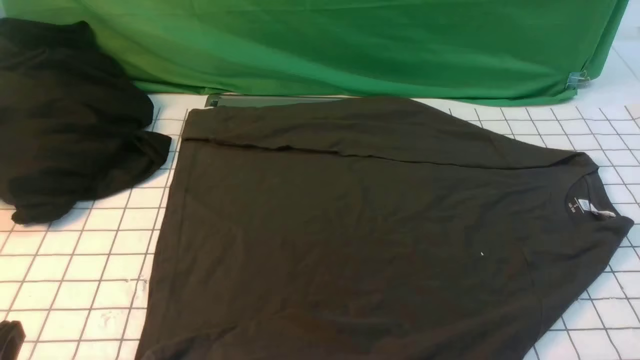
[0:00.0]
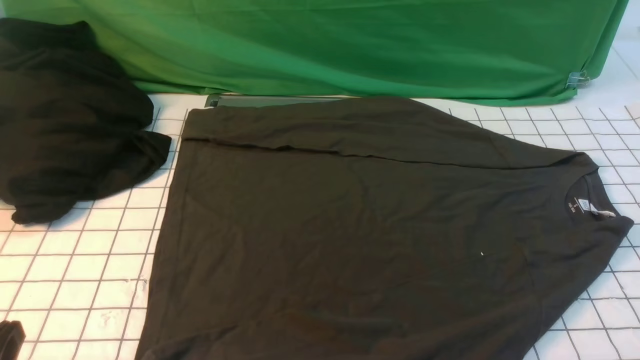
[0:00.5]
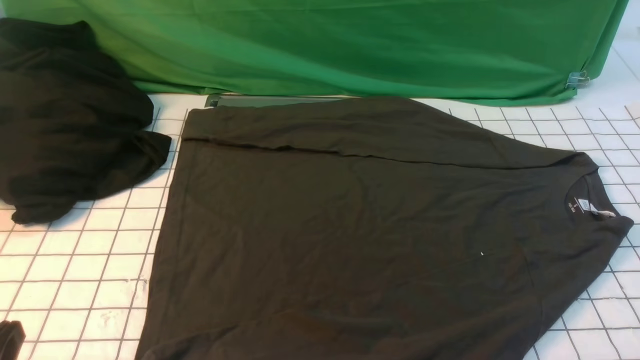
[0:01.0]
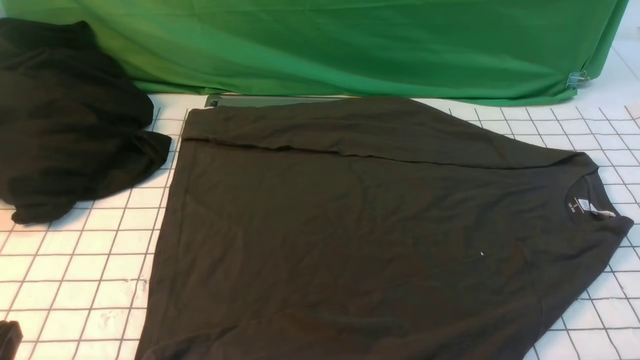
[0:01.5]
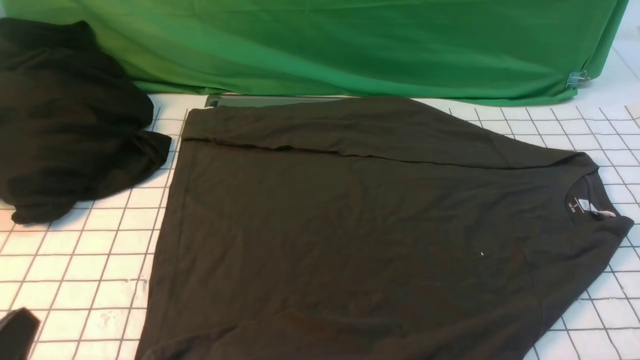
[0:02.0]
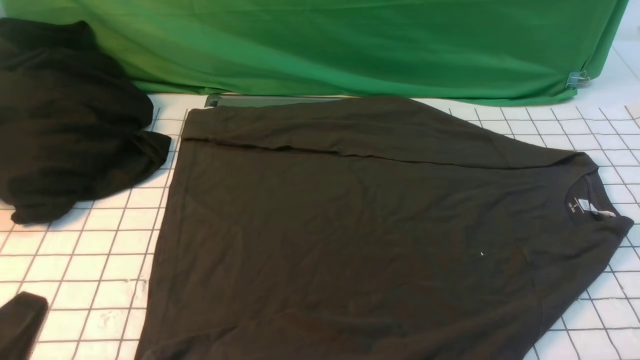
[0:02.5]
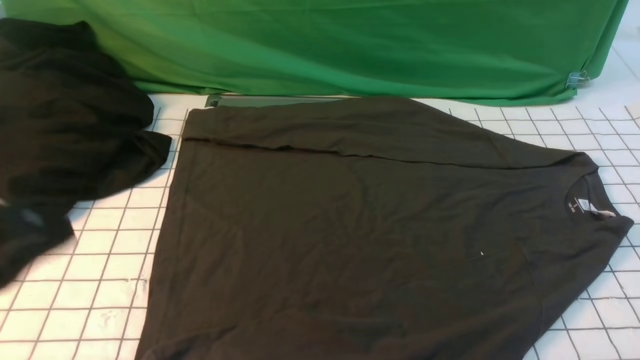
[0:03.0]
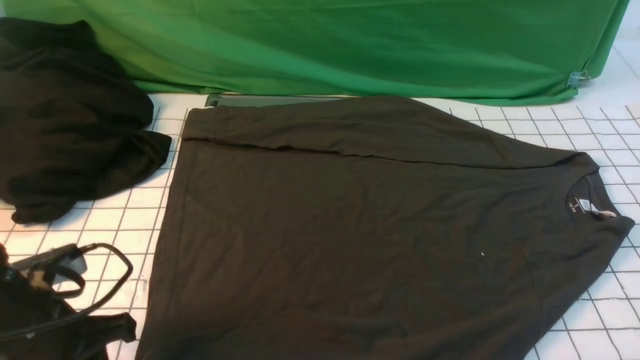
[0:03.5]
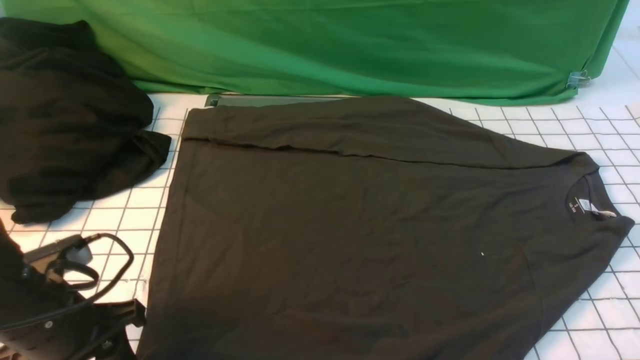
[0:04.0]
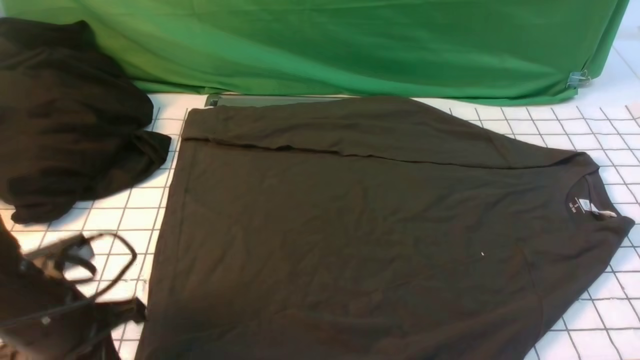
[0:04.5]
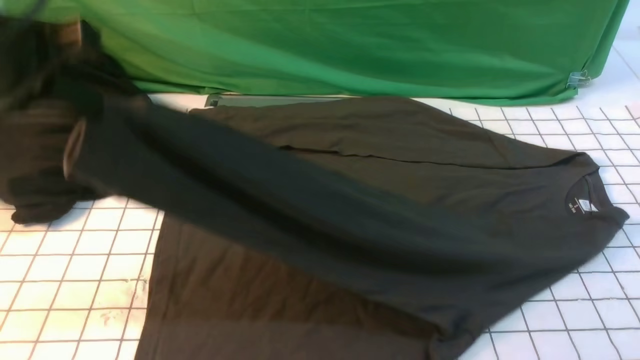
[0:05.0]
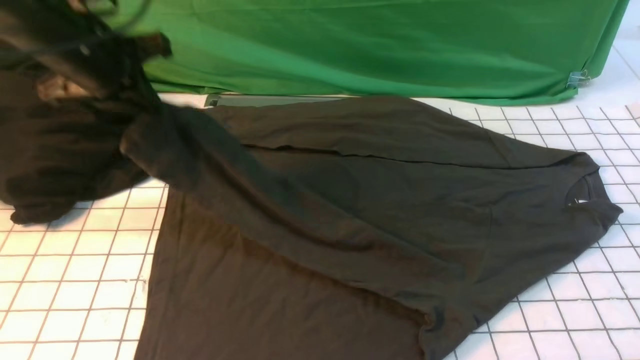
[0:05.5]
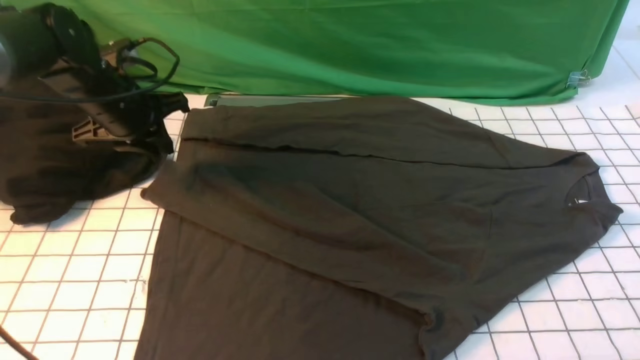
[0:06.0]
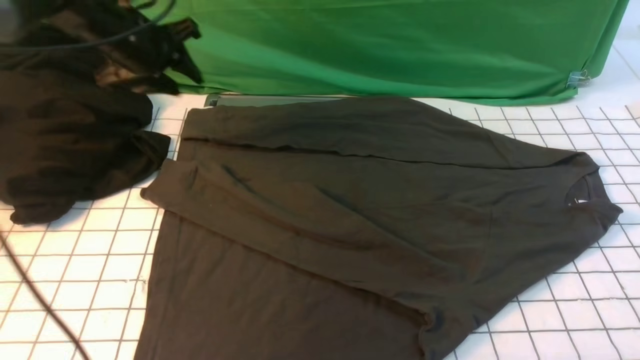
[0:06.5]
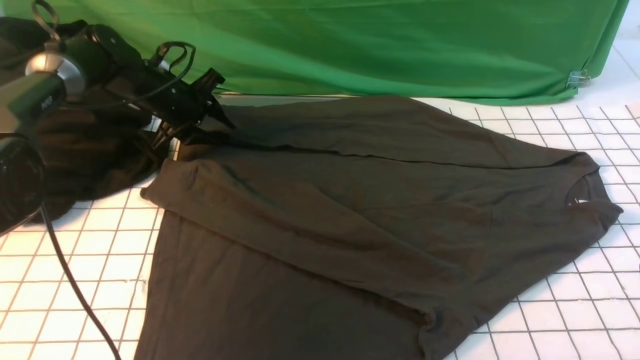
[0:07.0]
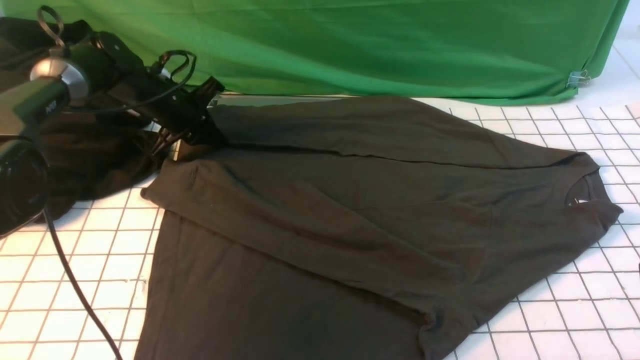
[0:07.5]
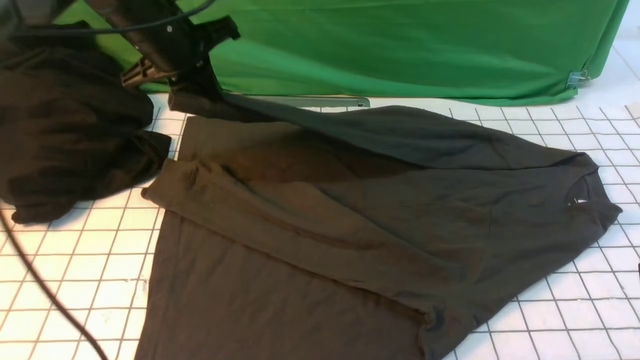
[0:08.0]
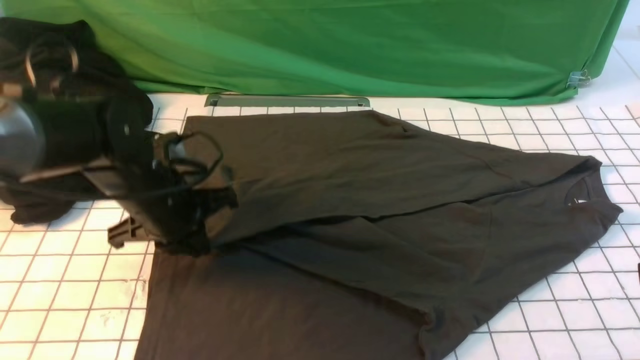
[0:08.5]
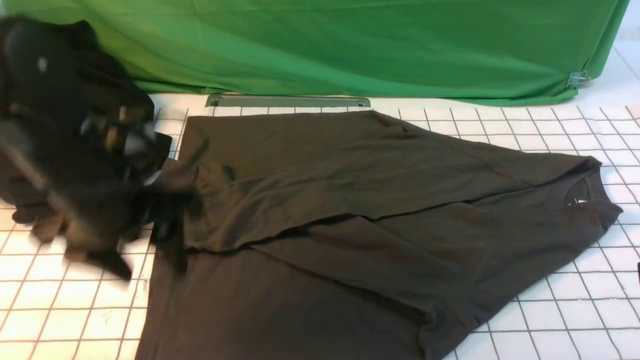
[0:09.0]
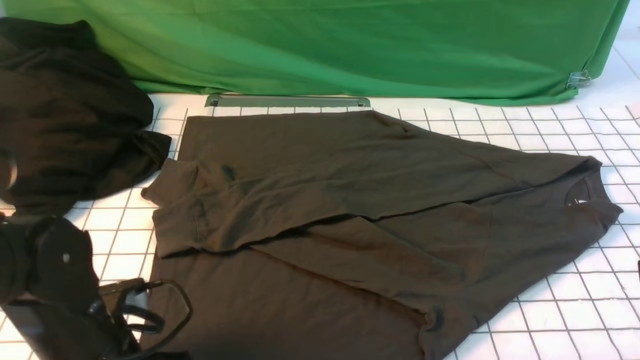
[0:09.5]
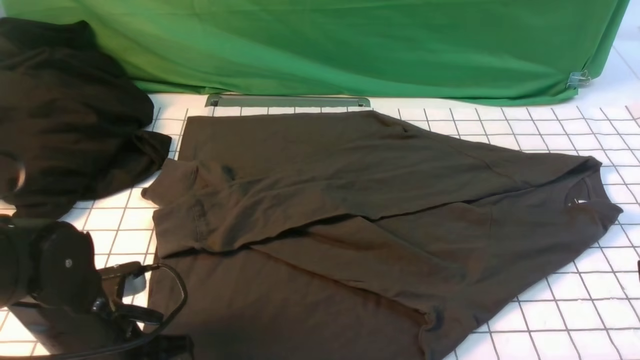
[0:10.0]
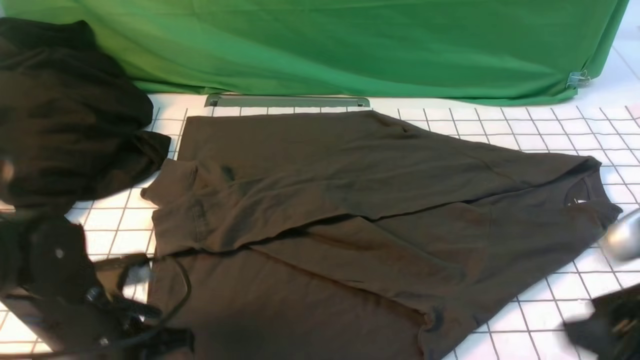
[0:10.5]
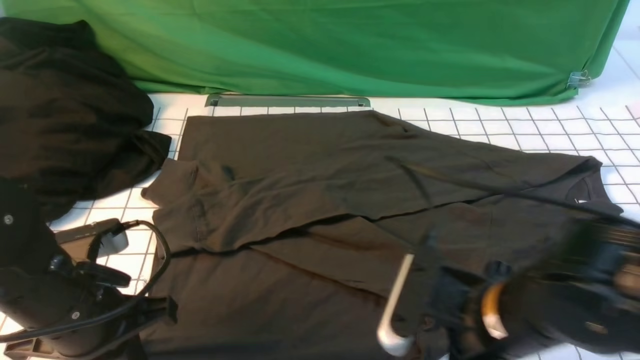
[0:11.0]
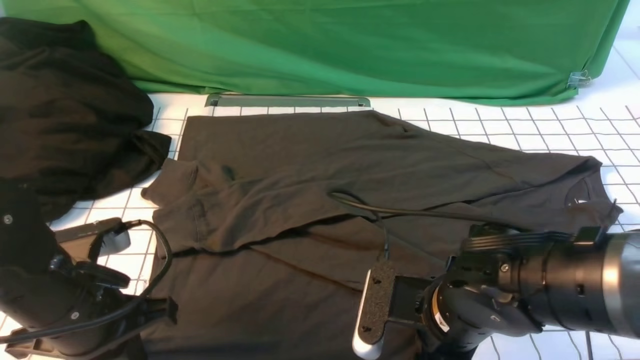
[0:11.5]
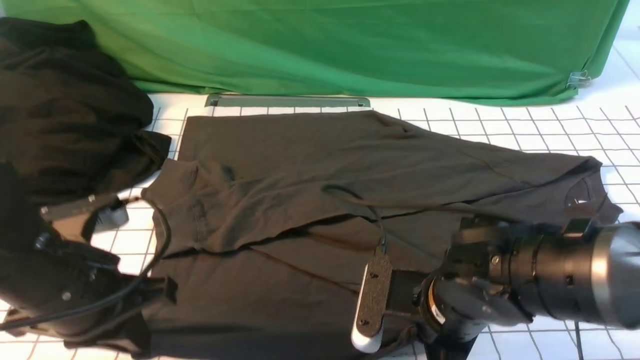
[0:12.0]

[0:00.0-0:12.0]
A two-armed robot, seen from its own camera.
Step, 0:00.0 to 0:04.5: use the left arm to clamp the cuff closest to it.
Step, 0:05.0 to 0:06.0: use the left arm to clamp the cuff farthest from it.
Step, 0:06.5 to 0:07.5: use the left arm to drag and place the cuff at the centered position on the left edge of the fabric.
Step, 0:08.0 to 0:08.5: use the left arm to drag and drop the cuff onto the cuff closest to the left arm.
0:02.0 to 0:04.0: The left gripper moves forward, approximately 15 cm, and opens.
0:04.0 to 0:06.0: The left gripper heads forward, covering roughly 25 cm, and closes and opens again.
0:06.0 to 0:08.0: The left gripper heads to the right, covering approximately 5 cm, and closes its fingers.
0:08.0 to 0:10.0: The left gripper travels backward and downward by approximately 30 cm, and opens its fingers.
0:10.0 to 0:12.0: The right gripper goes approximately 25 cm to the left and downward, and closes up. Meanwhile the left gripper is displaced upward by some 5 cm, and closes its fingers.

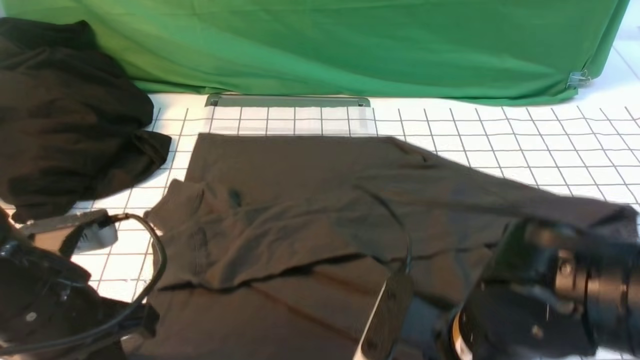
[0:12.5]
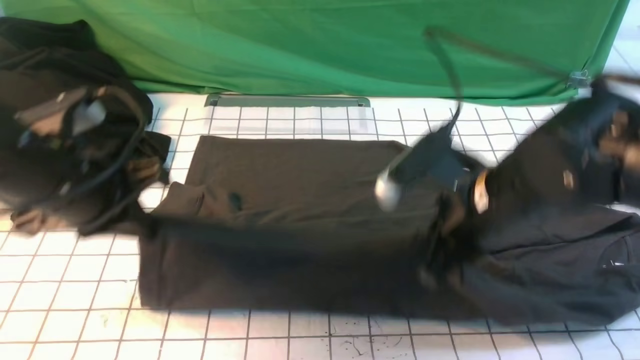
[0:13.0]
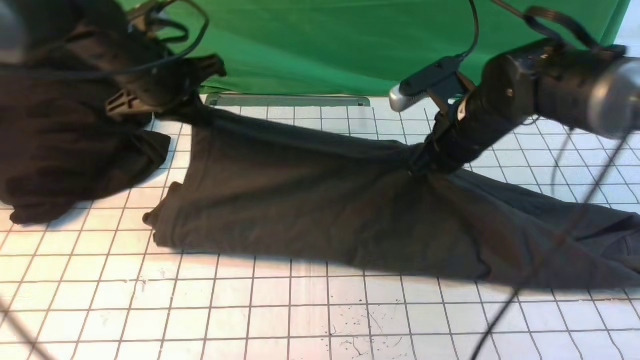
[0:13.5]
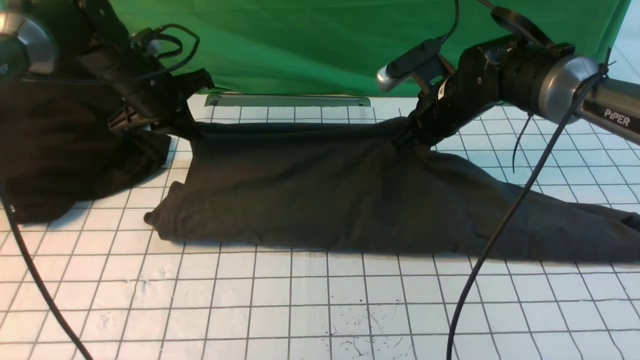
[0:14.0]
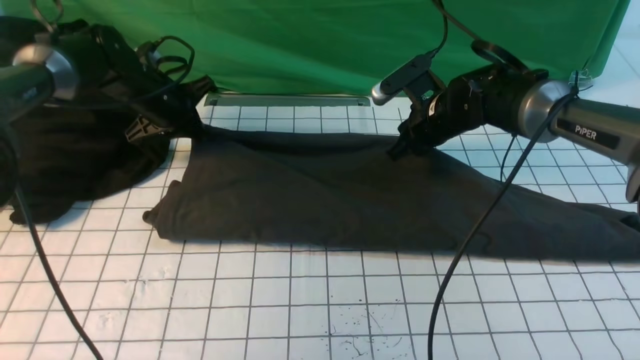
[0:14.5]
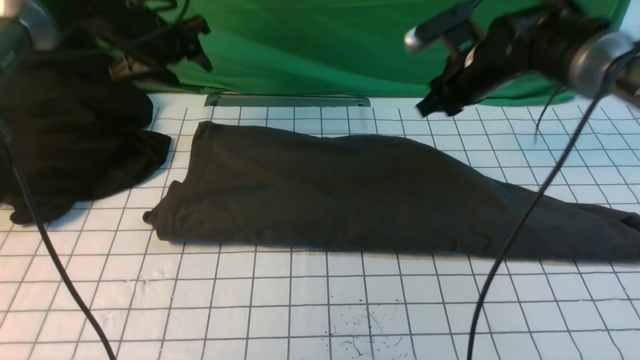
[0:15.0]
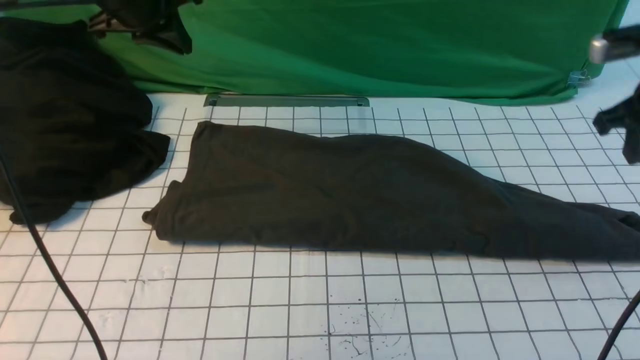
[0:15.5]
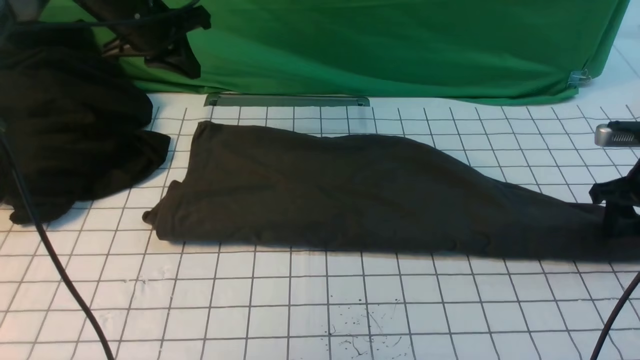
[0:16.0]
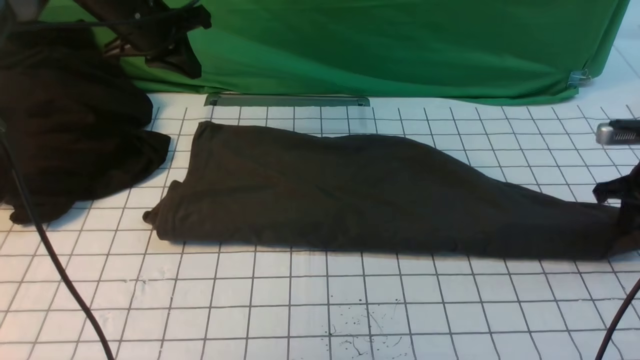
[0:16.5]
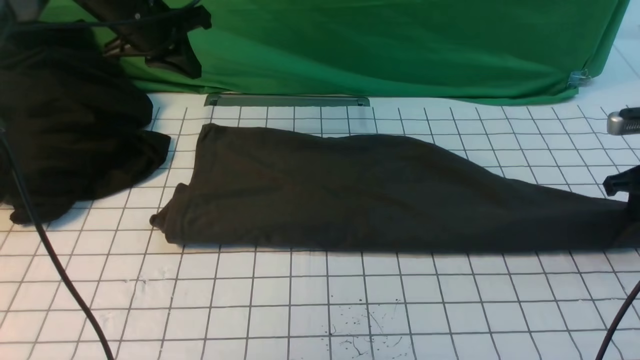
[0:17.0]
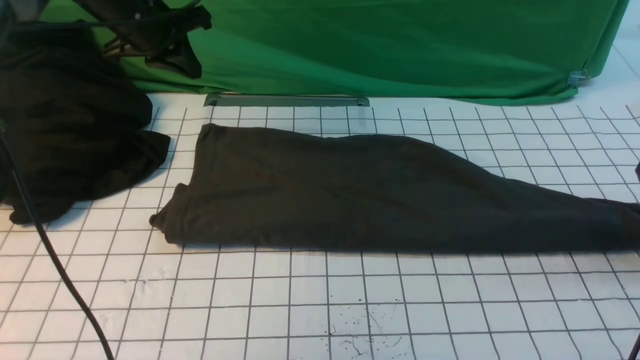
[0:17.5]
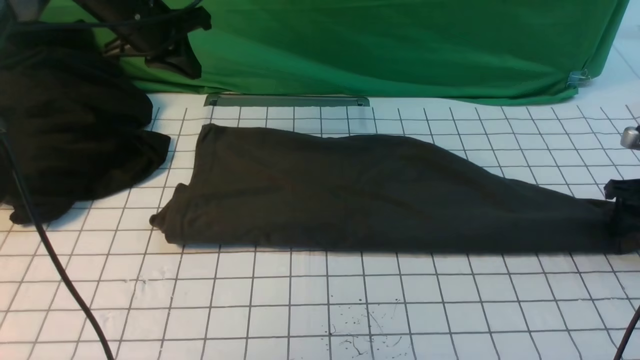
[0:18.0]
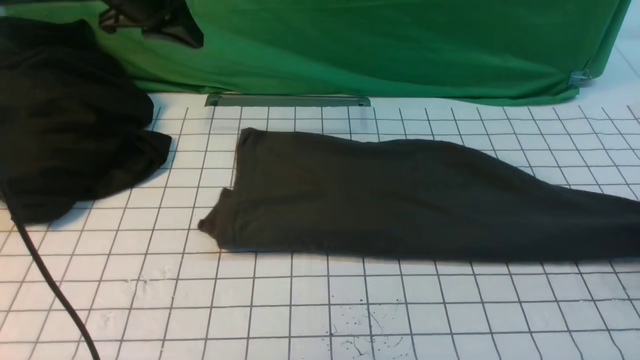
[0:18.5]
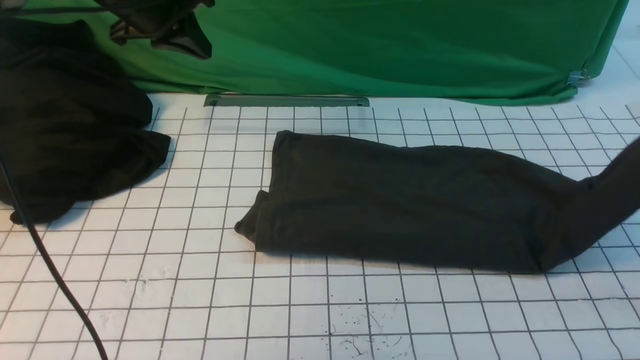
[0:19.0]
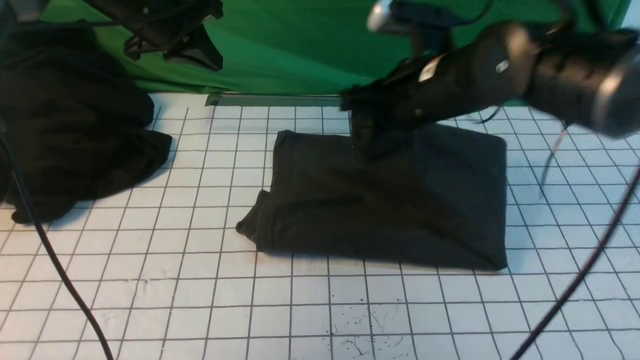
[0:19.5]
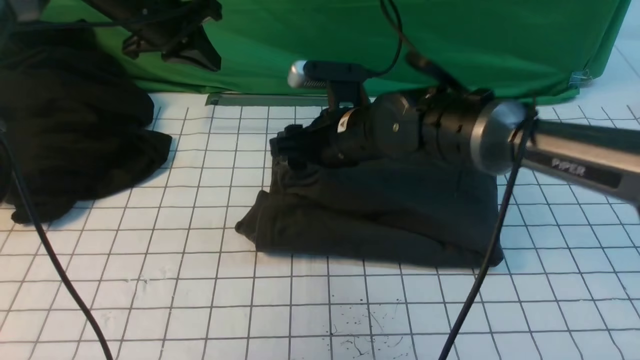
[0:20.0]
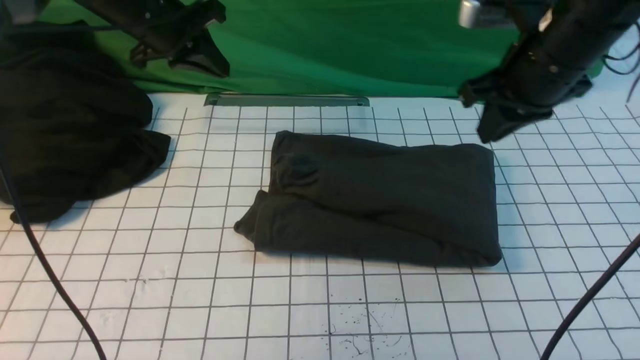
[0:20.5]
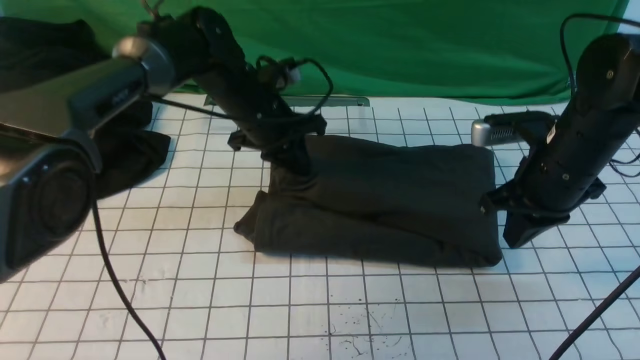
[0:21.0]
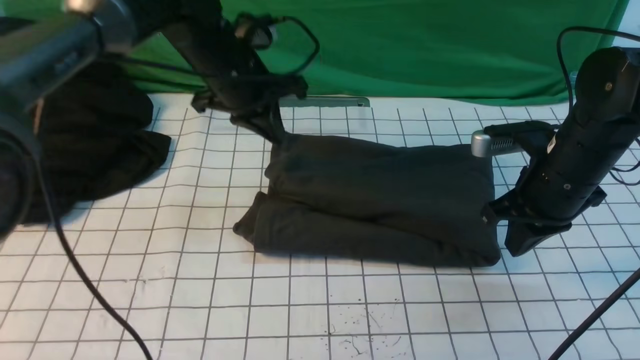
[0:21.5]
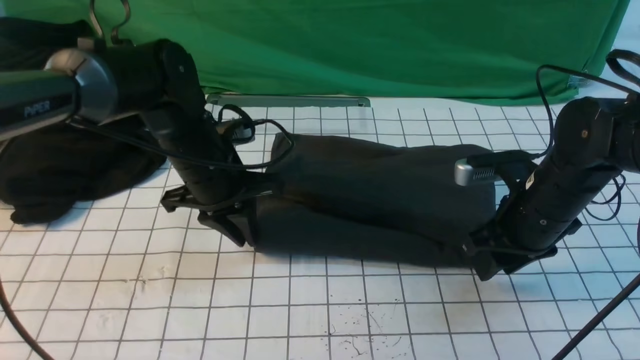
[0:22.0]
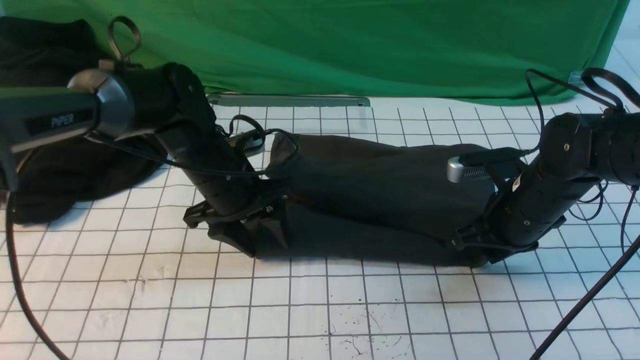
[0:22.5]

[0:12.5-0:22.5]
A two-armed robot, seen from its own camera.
Step, 0:12.5 to 0:14.5: use both arms to drag the lower edge of the fabric forward and fold it over the upper edge.
Step, 0:15.0 to 0:18.5: use the right arm to clamp the right edge of the fabric.
Step, 0:19.0 to 0:20.0: use the right arm to drag the right edge of the fabric to the left and folds it over the left edge.
0:12.5 to 0:14.5: The grippers both shift forward by roughly 30 cm. The right gripper opens.
0:14.5 to 0:16.5: The left gripper shifts roughly 10 cm upward, and opens, then closes once more. Meanwhile the right gripper goes roughly 25 cm to the right.
0:16.5 to 0:18.5: The right gripper shifts approximately 10 cm to the right, and opens, then closes once more.
0:18.5 to 0:20.5: The left gripper changes place by approximately 5 cm, while the right gripper travels to the left by about 30 cm, and opens and closes again.
0:20.5 to 0:22.5: The right gripper goes about 15 cm downward. Meanwhile the left gripper moves up and down over roughly 10 cm, changing direction 2 times, and opens.
